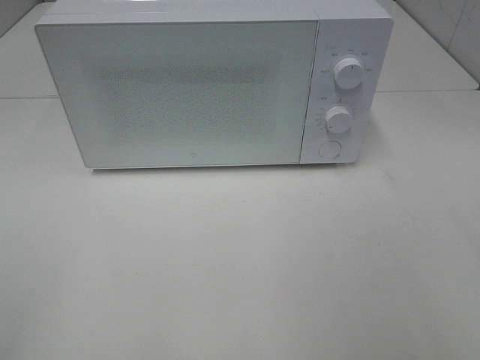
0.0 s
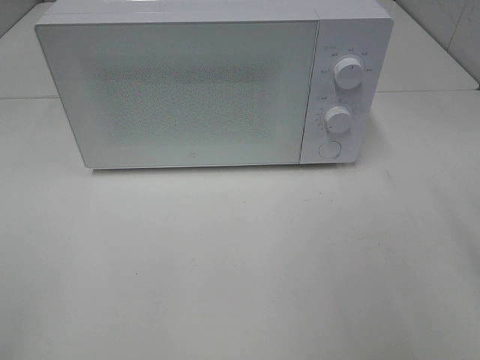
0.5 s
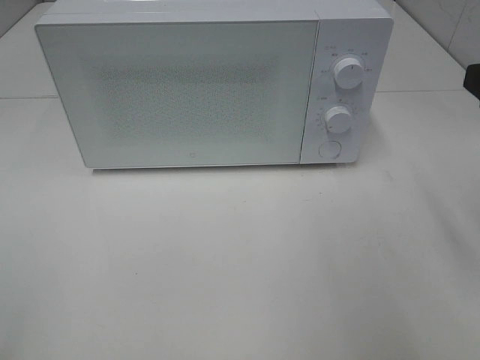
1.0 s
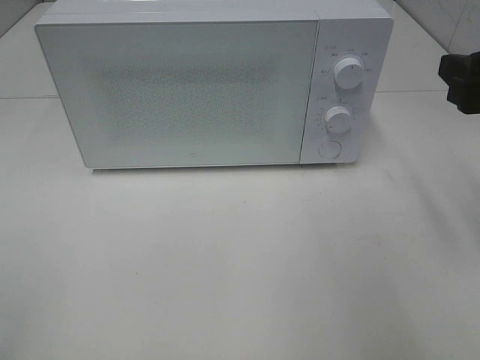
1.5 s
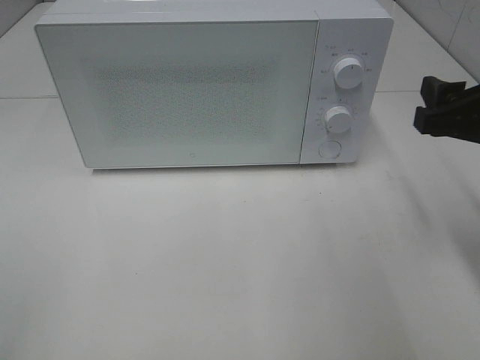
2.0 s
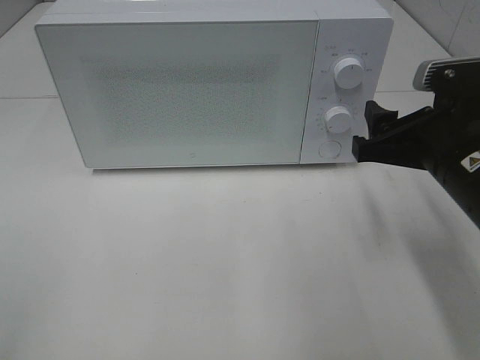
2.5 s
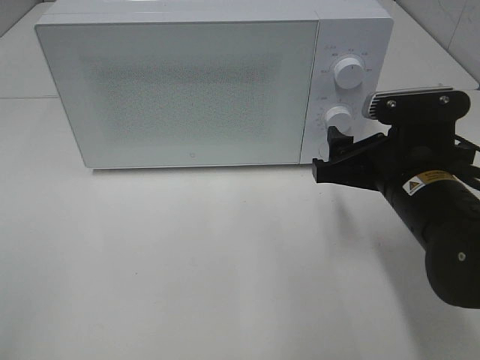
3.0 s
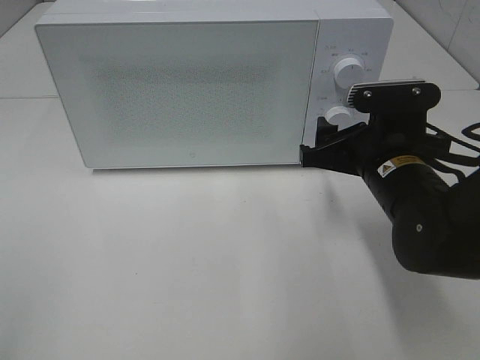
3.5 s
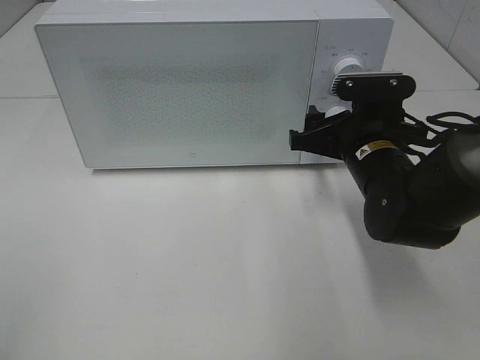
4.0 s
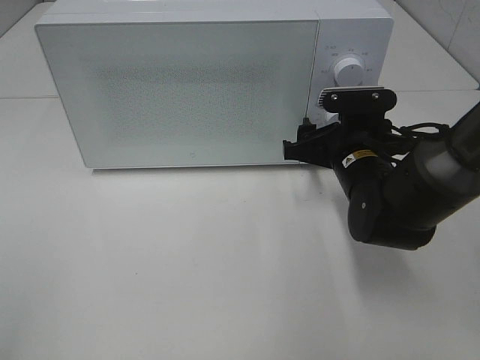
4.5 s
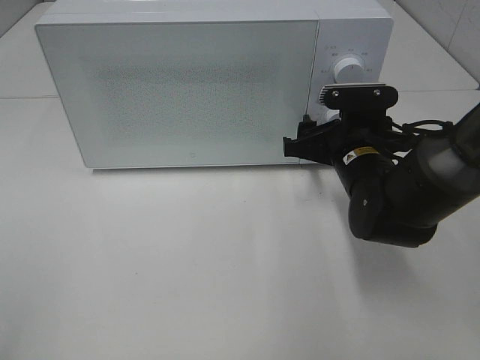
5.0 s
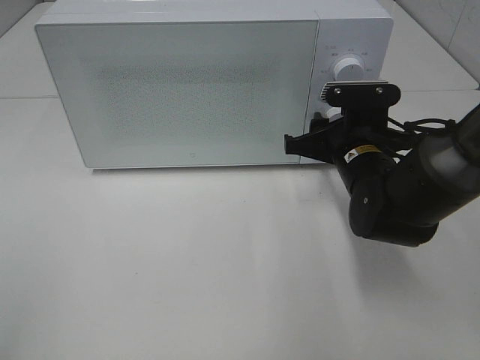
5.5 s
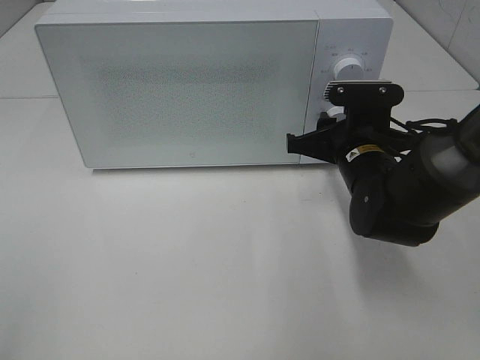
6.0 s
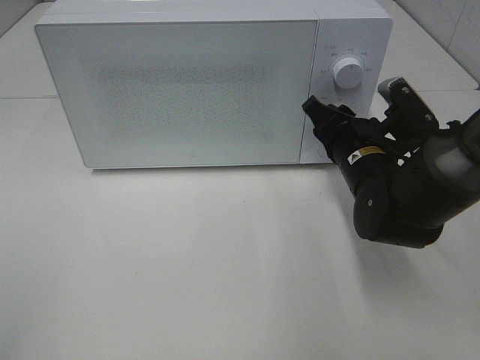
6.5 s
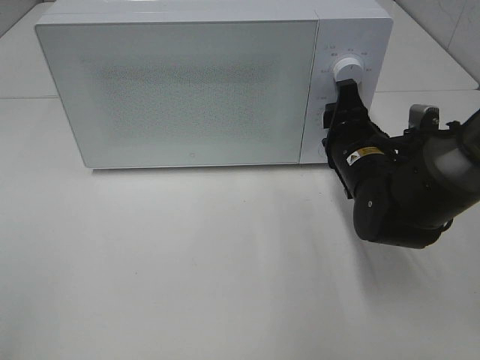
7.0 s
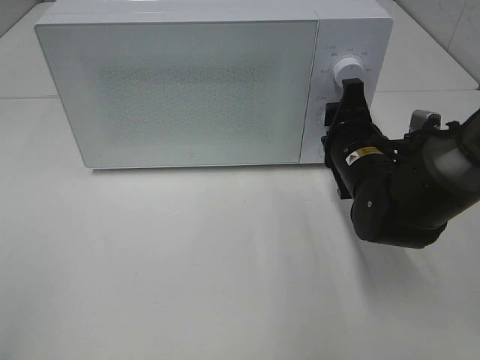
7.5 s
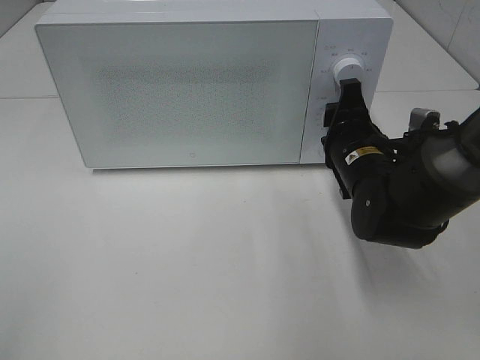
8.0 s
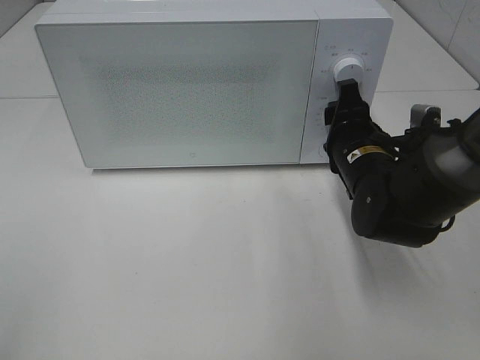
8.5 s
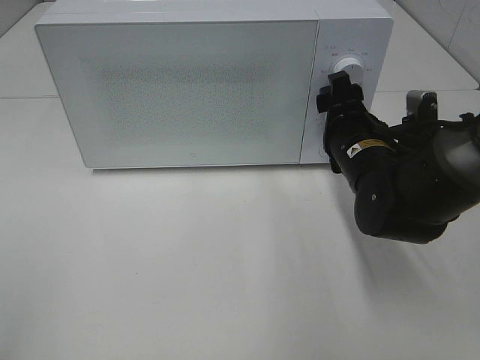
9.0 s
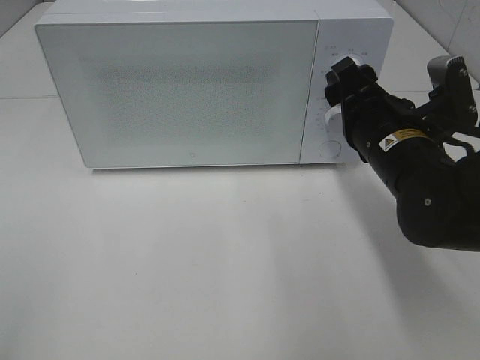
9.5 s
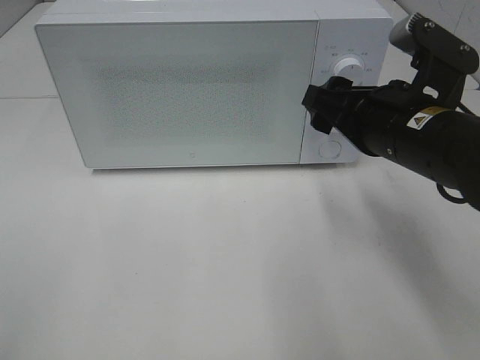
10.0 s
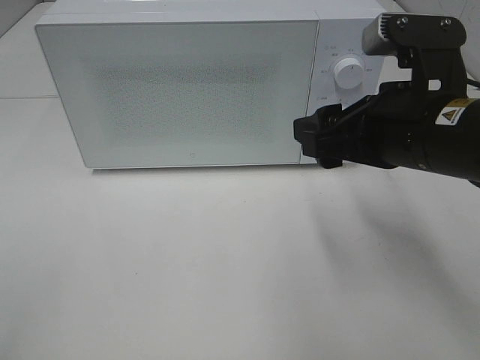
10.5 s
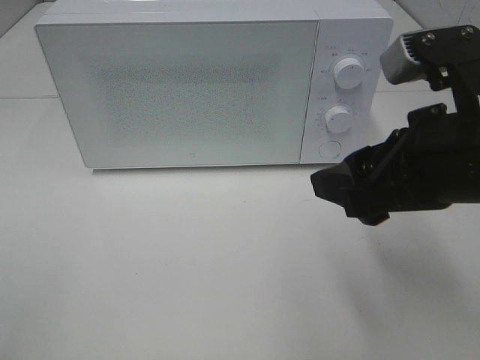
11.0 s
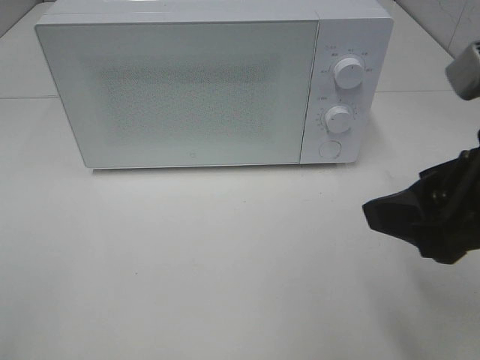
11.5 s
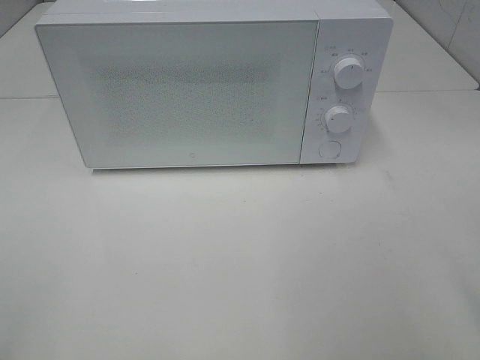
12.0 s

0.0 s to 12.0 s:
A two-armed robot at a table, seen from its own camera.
Task of the whole recording: Heat the burger.
Step, 0.0 to 8.0 s: Right hand: twist timer button.
0.0 to 2.0 s: The right gripper moves forward and downward, some 20 cm.
2.0 to 4.0 s: The right gripper shifts about 15 cm to the left, downward and forward.
4.0 to 6.0 s: The right gripper closes.
8.0 to 10.0 s: The right gripper is displaced upward and backward by roughly 10 cm.
10.0 to 12.0 s: The right gripper is displaced backward, to the right and upward by about 20 cm.

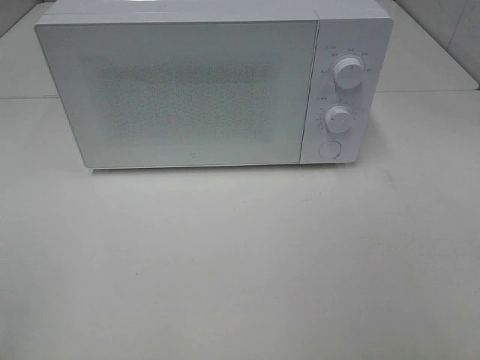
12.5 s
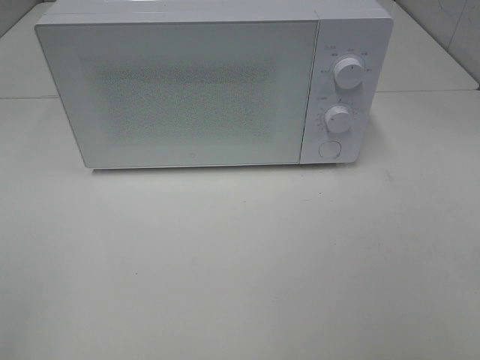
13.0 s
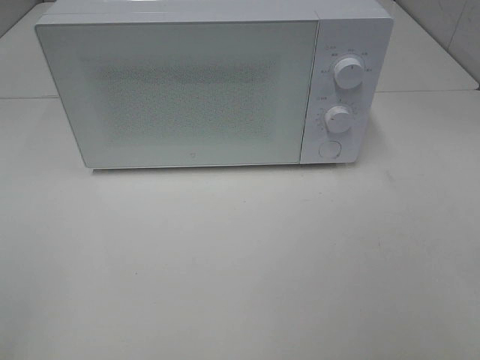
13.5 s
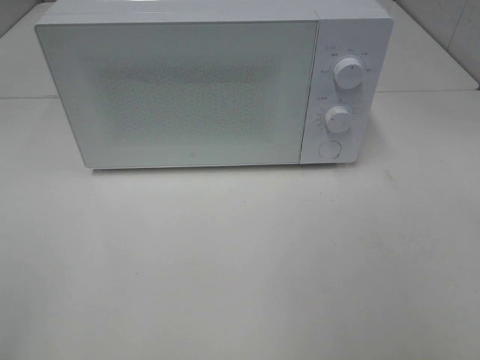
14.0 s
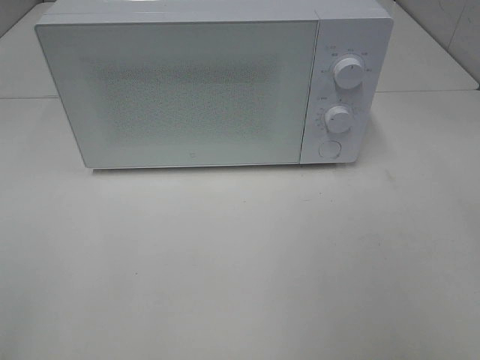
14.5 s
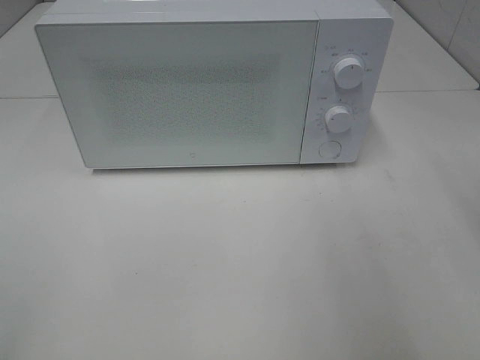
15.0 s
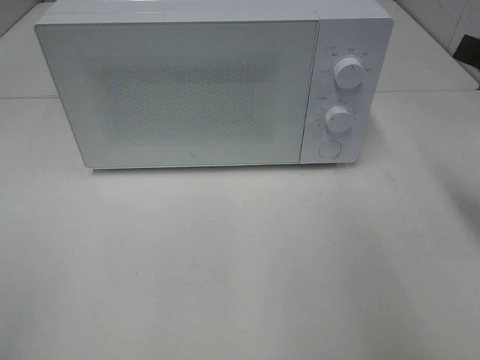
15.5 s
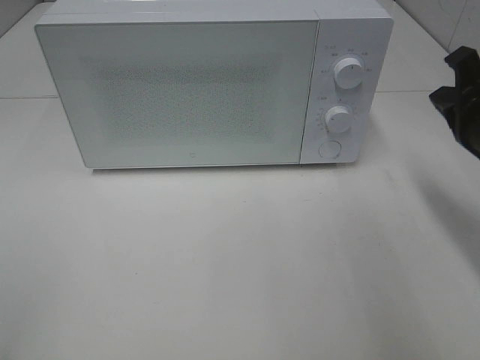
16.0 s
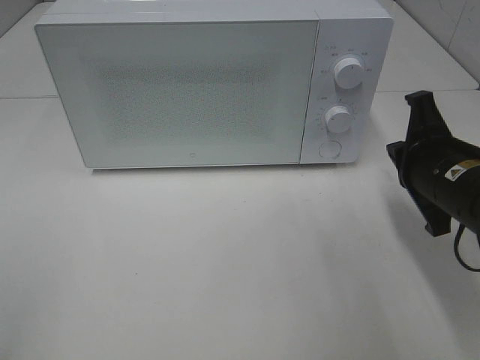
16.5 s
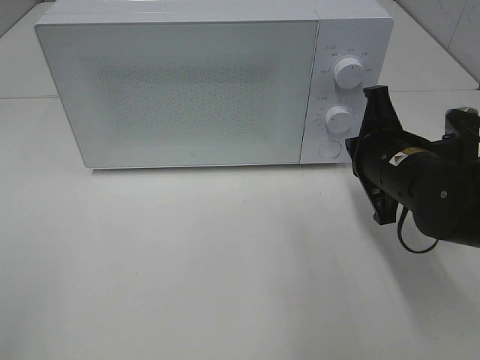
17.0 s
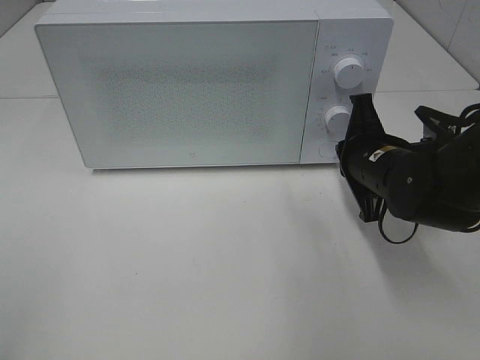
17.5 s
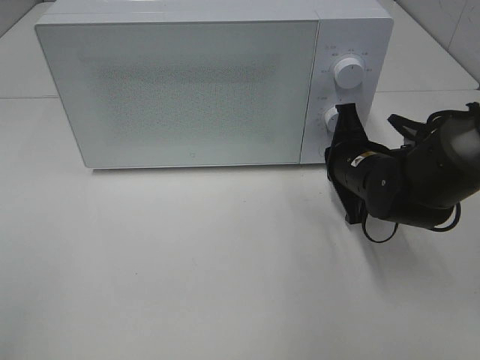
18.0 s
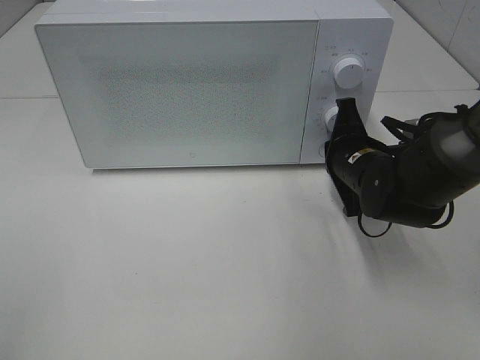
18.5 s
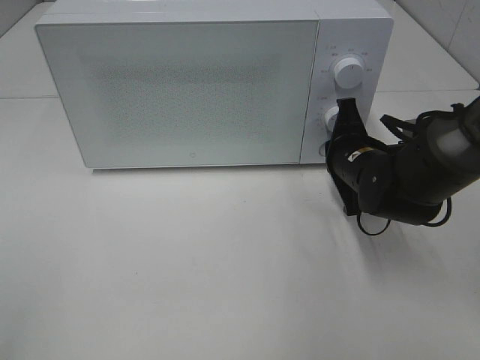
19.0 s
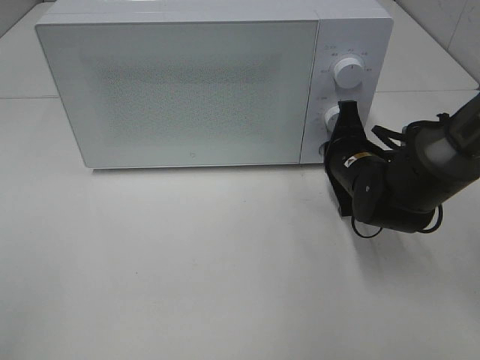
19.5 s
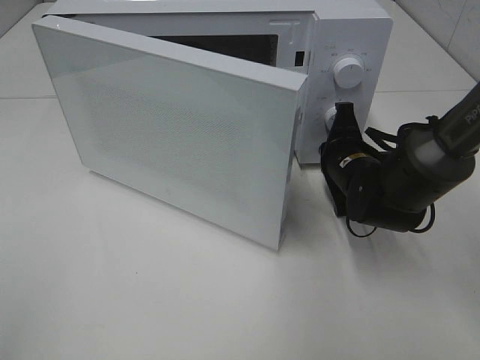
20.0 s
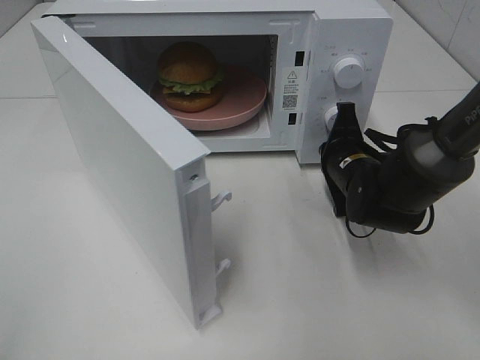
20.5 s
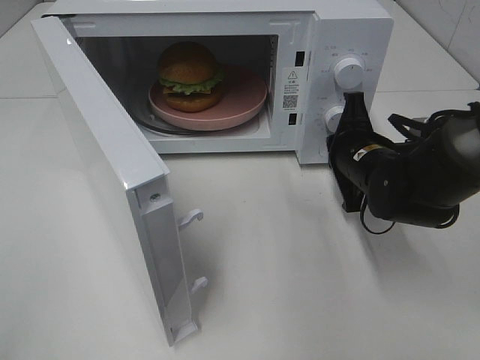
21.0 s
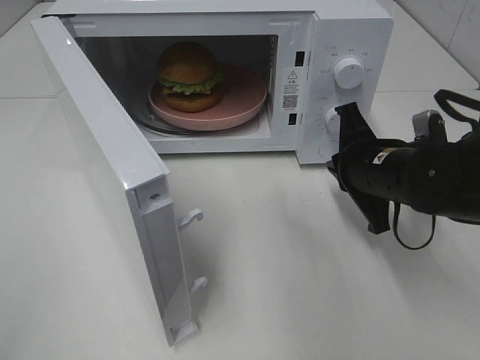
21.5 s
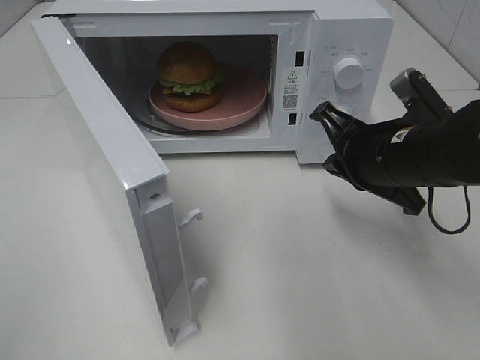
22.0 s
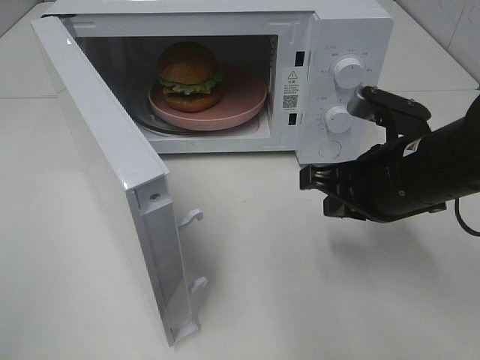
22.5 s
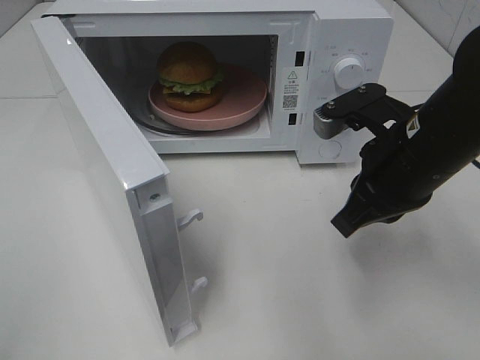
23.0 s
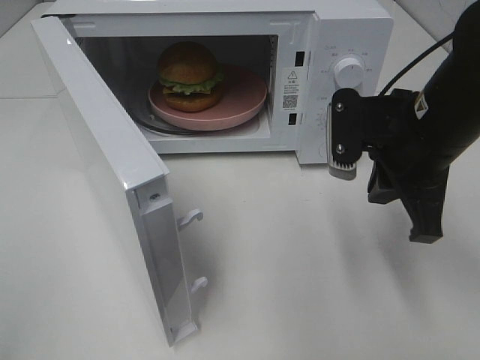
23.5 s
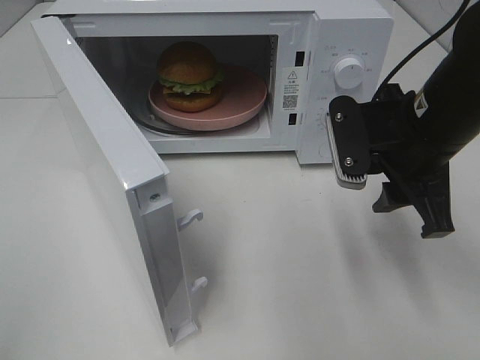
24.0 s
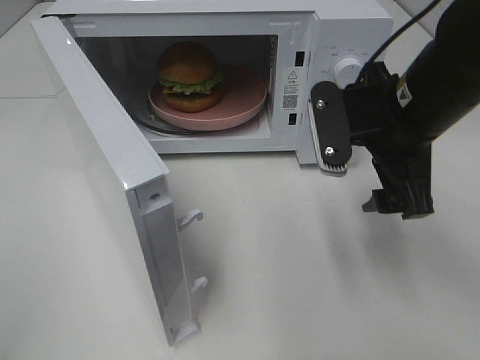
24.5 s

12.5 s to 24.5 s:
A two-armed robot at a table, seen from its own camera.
Task of the whole recording: Heat the burger.
Step, 12.5 to 21.0 s: Right hand: press the switch.
14.5 to 16.5 s: The right gripper goes approximately 20 cm downward and forward, and closes its fingers.
16.5 to 18.5 s: The right gripper goes approximately 10 cm forward, downward and to the left.
20.5 to 22.5 s: The right gripper goes roughly 15 cm backward and upward.
22.5 to 24.5 s: The right gripper moves upward, approximately 5 cm, and opens.

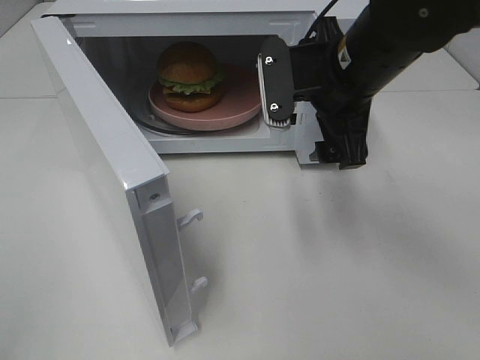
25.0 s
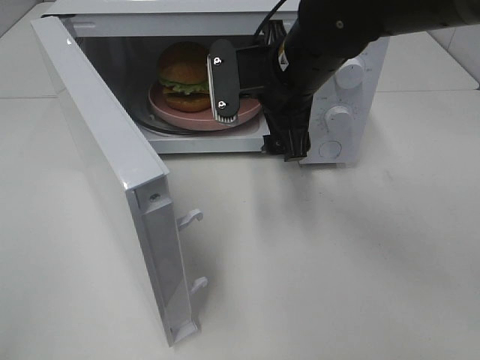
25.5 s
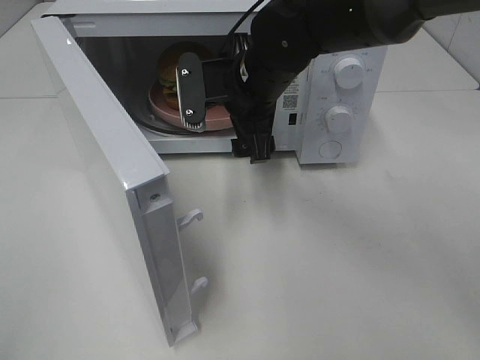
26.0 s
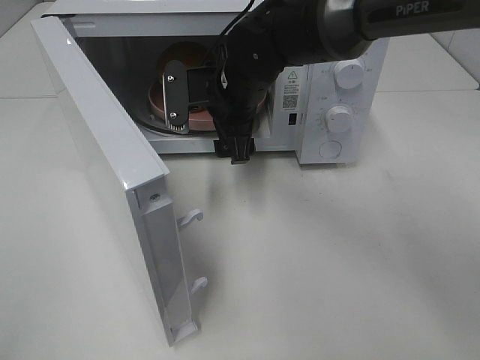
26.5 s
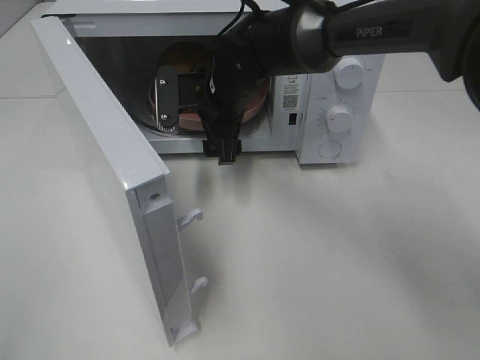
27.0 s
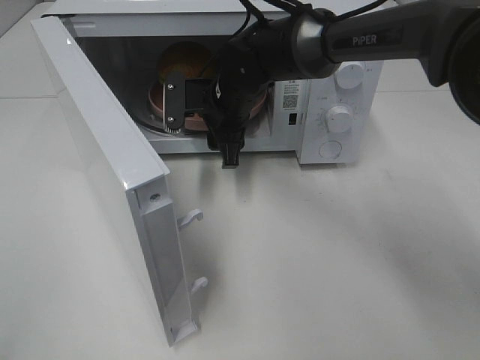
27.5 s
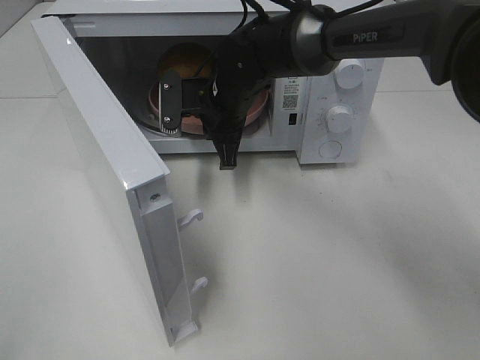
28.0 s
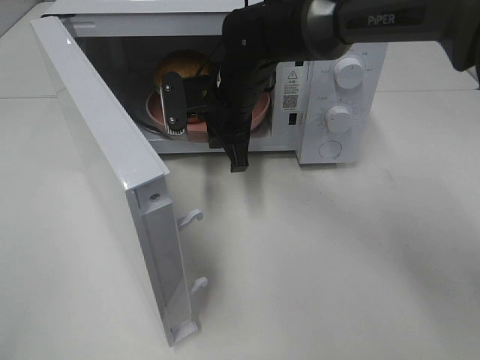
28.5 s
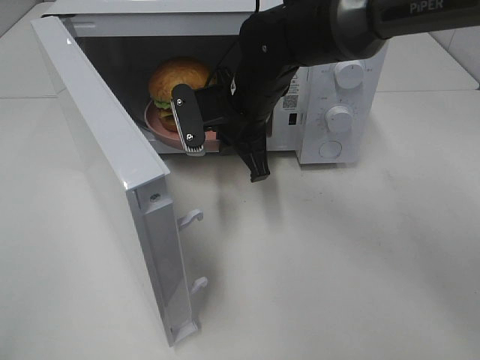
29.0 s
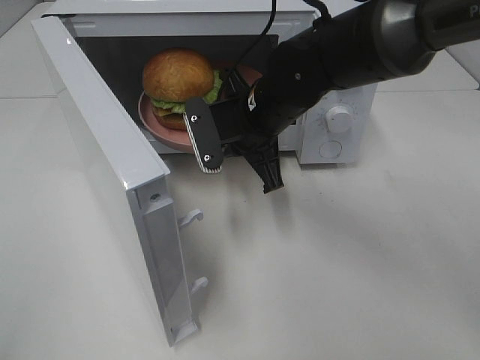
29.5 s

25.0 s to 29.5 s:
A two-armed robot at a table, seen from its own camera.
Task of the whole recording: Heat the burger.
Step, 25.0 to 27.5 s: Right hand: grab the plate with the hamburger.
25.0 to 27.0 s: The right gripper moves to the left, forward and downward, about 20 cm.
27.0 to 29.5 s: The right gripper moves backward, some 5 cm, and closes.
